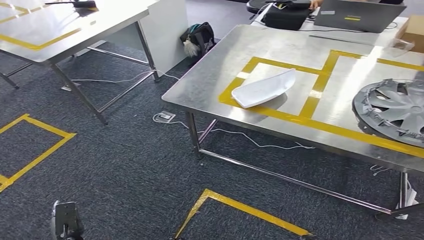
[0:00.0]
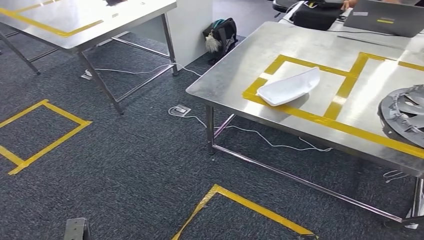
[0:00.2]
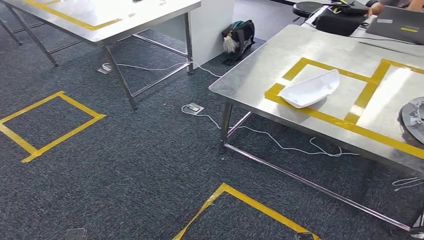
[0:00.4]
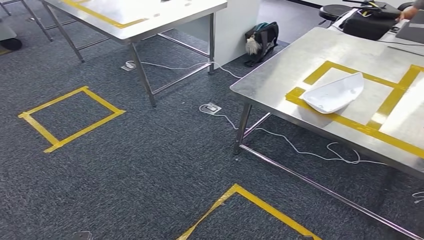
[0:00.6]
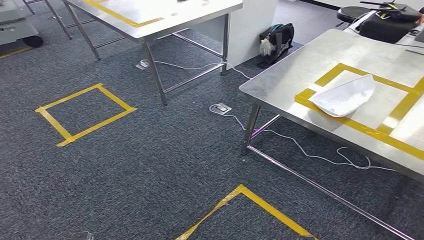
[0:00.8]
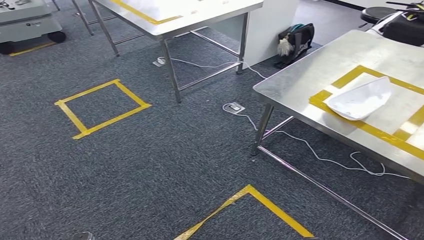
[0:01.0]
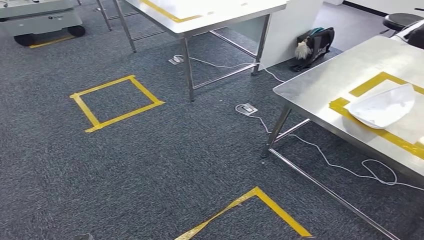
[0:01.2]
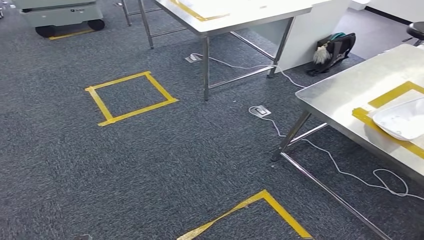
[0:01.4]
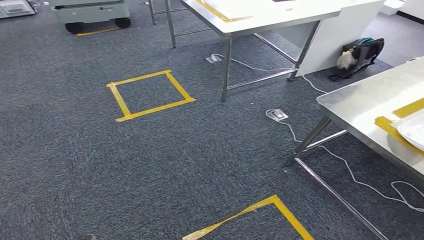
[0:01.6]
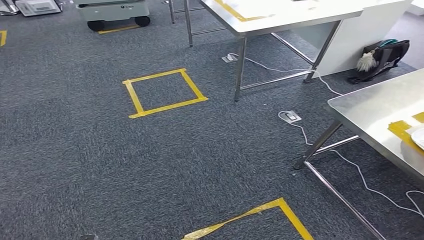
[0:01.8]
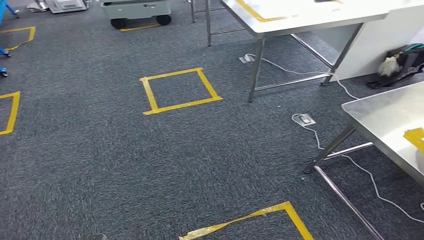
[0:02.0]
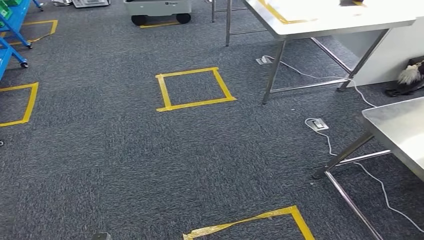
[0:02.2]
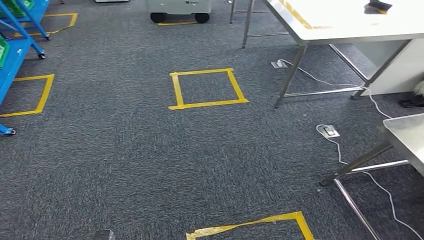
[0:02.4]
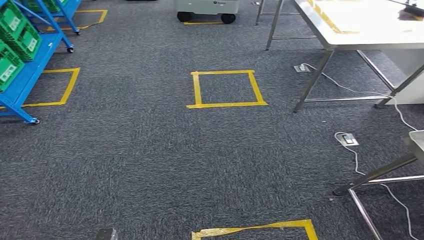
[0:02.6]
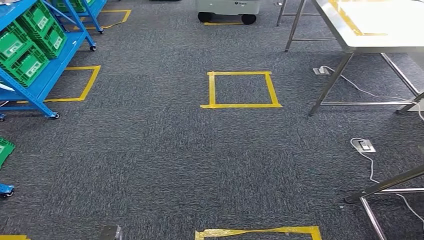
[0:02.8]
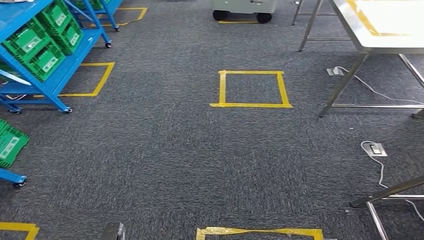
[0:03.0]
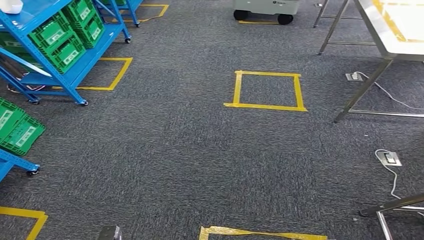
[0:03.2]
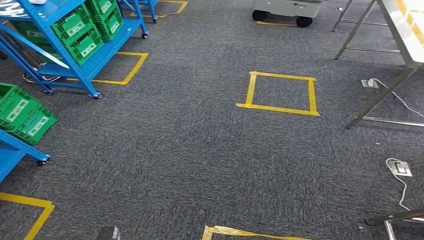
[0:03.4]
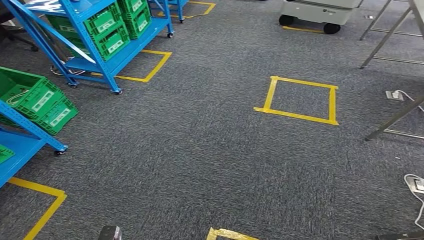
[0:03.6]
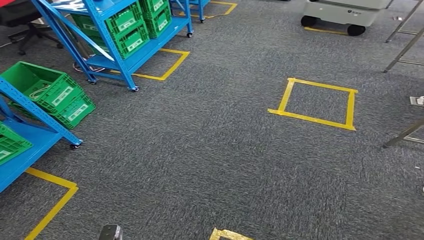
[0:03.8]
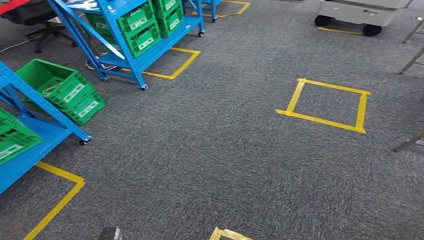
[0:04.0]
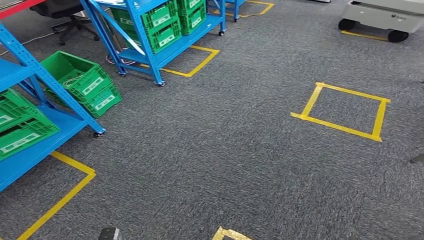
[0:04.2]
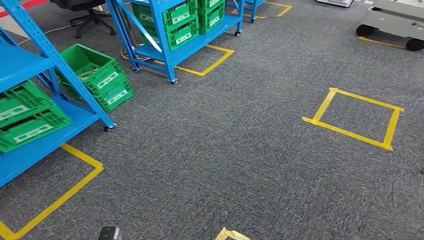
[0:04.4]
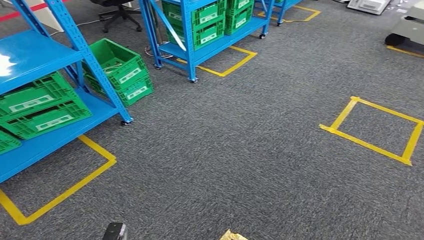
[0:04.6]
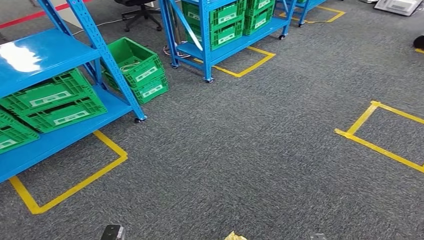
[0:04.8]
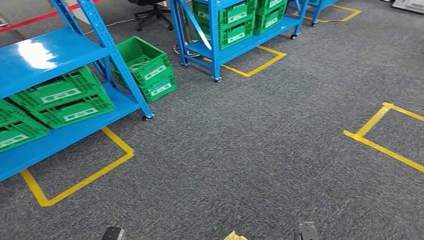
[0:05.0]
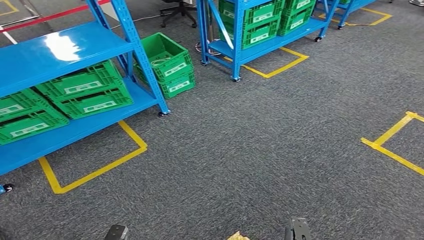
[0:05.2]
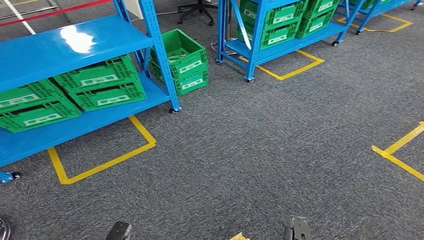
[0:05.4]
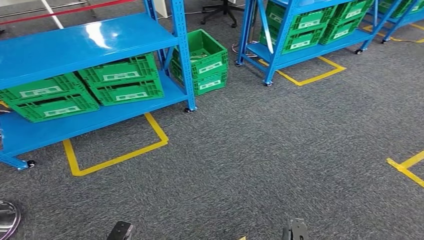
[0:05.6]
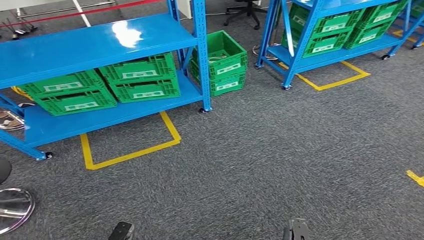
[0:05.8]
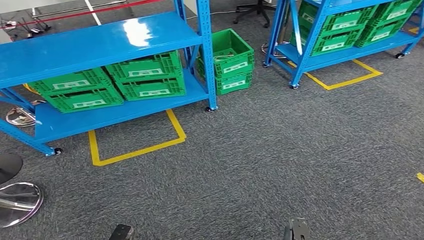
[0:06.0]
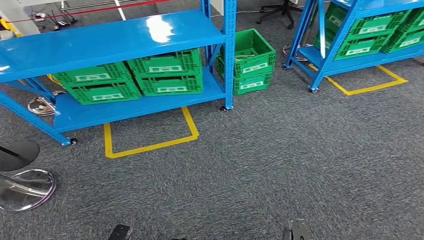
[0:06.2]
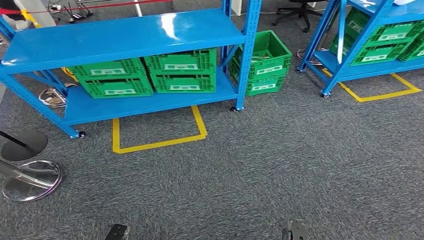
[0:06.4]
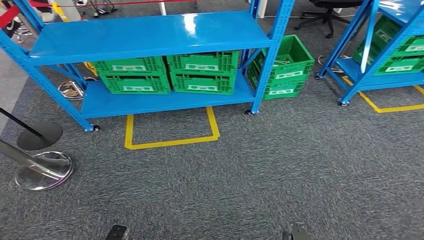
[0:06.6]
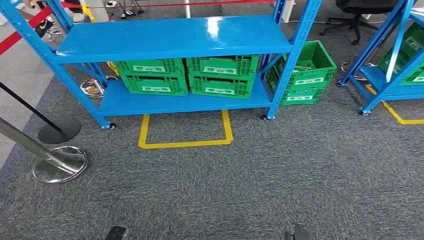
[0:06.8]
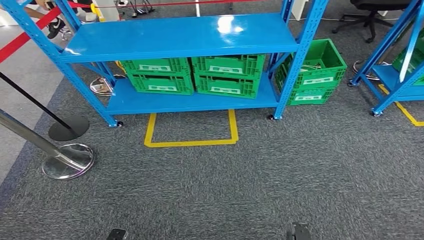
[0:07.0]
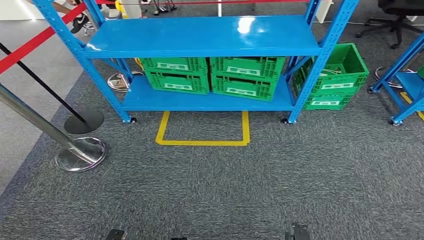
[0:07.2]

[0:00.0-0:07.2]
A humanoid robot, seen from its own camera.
Step, 0:00.0 to 0:07.0: Return to the initial position at the workbench.

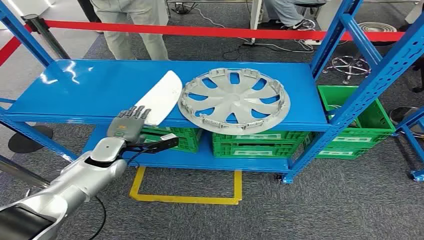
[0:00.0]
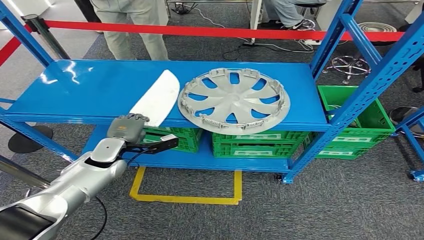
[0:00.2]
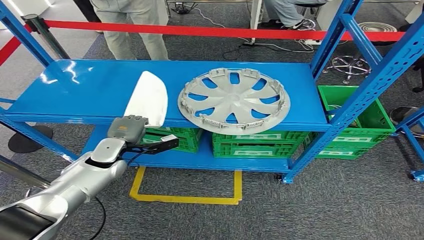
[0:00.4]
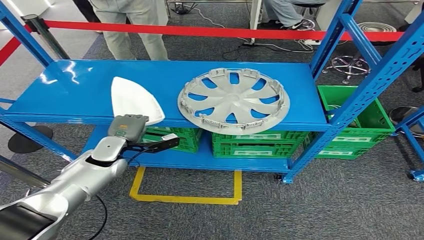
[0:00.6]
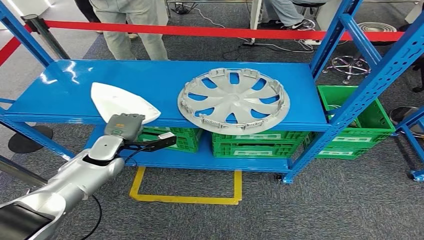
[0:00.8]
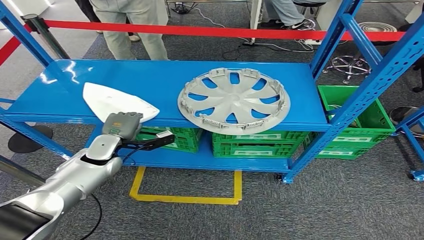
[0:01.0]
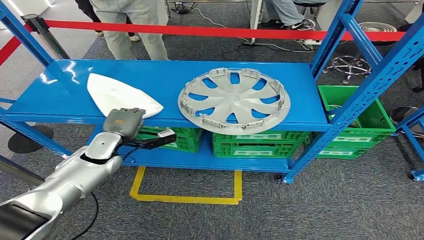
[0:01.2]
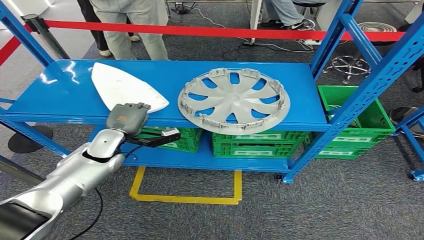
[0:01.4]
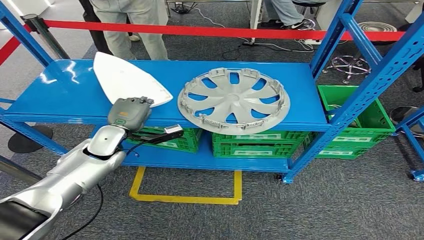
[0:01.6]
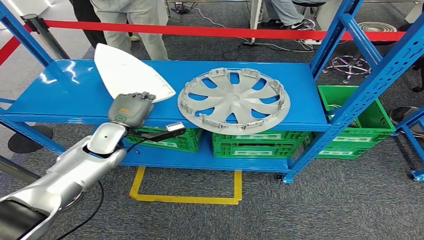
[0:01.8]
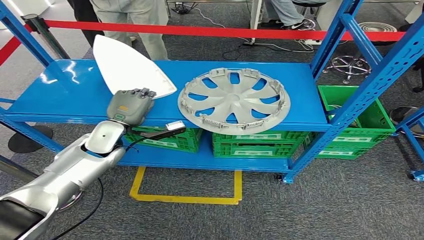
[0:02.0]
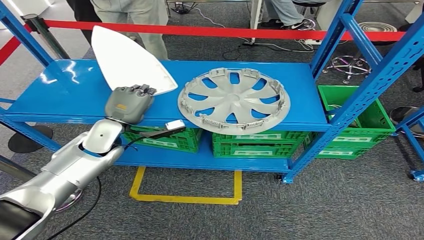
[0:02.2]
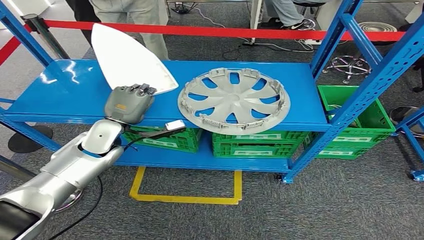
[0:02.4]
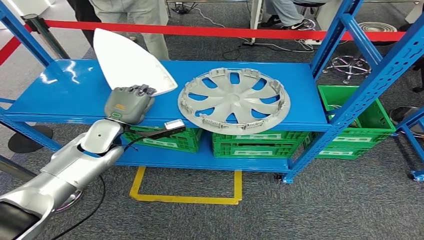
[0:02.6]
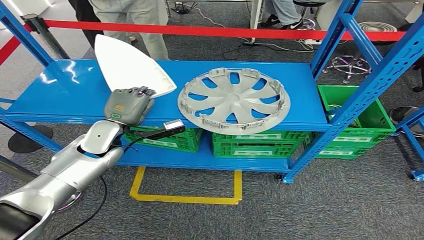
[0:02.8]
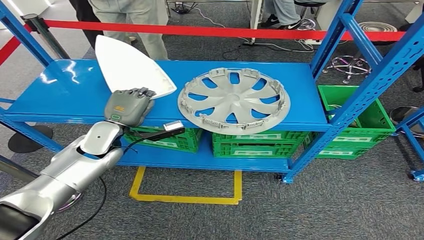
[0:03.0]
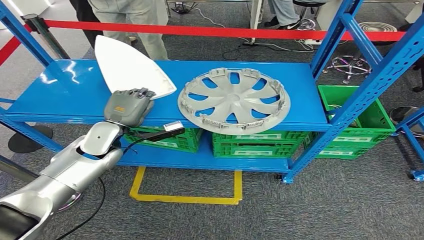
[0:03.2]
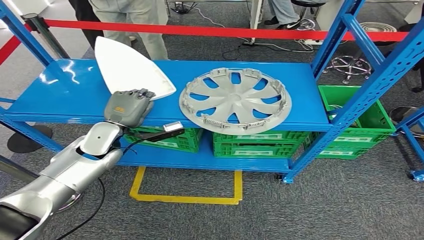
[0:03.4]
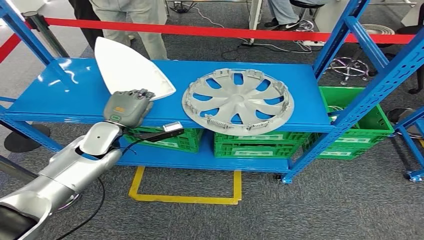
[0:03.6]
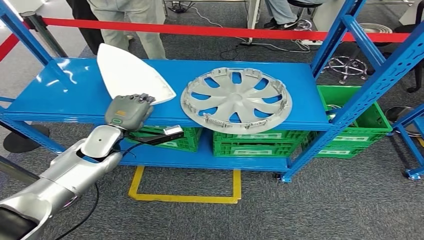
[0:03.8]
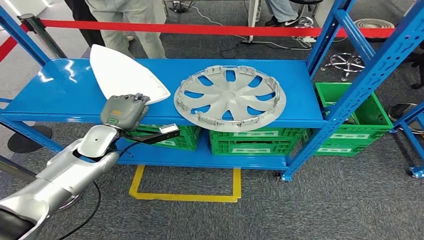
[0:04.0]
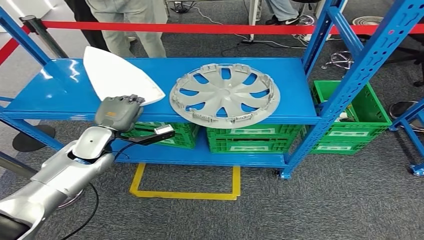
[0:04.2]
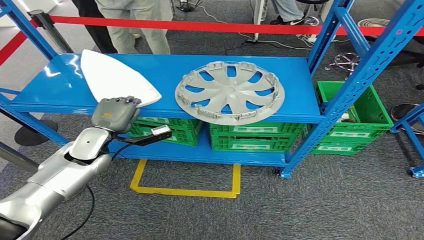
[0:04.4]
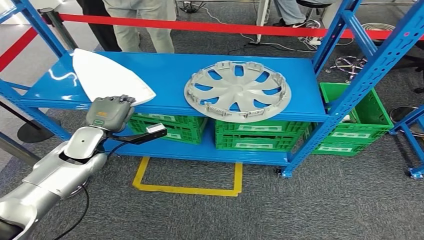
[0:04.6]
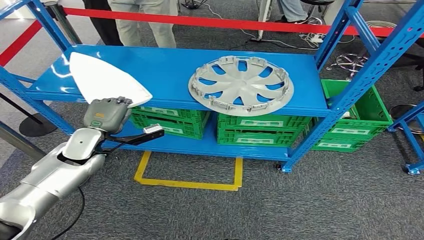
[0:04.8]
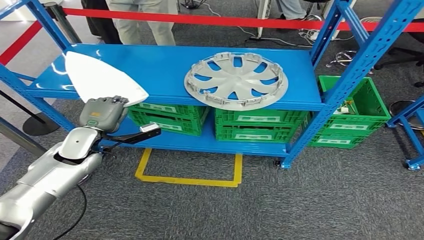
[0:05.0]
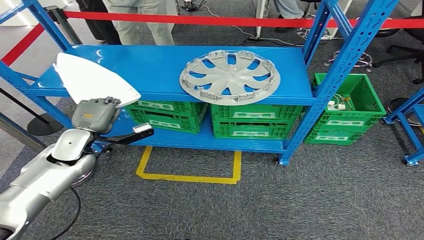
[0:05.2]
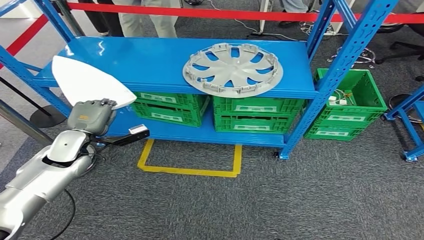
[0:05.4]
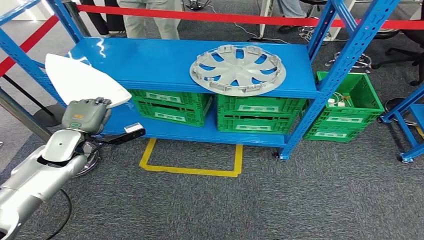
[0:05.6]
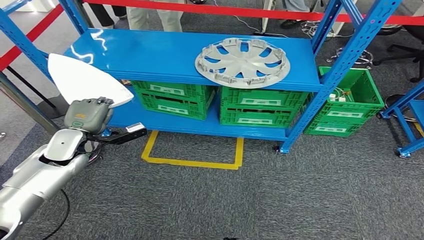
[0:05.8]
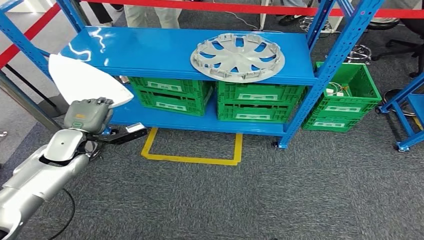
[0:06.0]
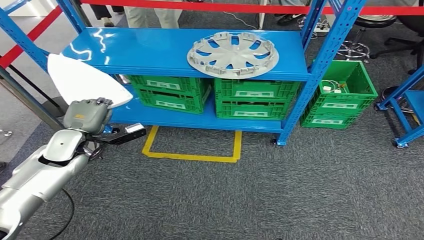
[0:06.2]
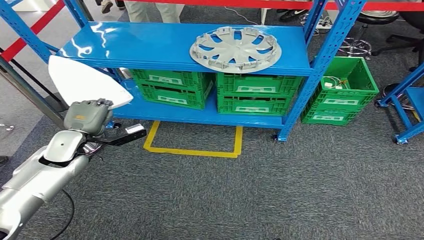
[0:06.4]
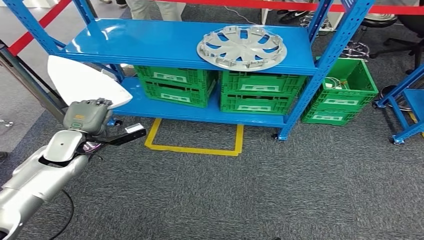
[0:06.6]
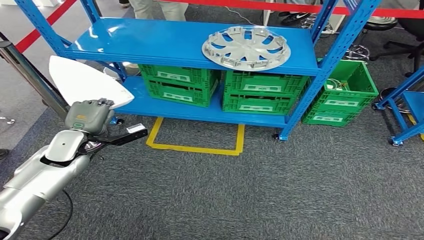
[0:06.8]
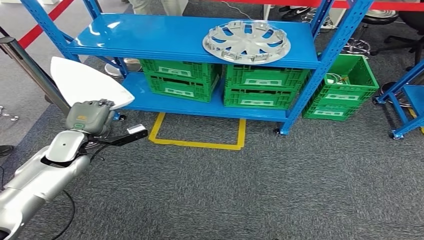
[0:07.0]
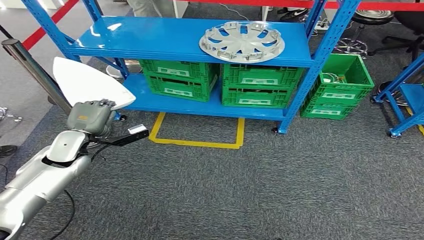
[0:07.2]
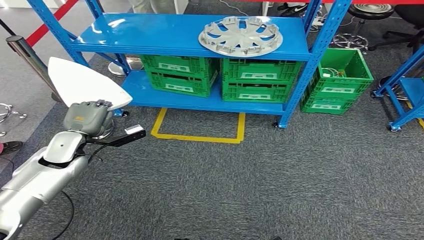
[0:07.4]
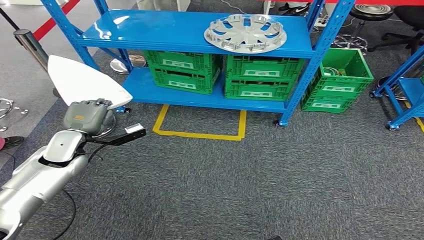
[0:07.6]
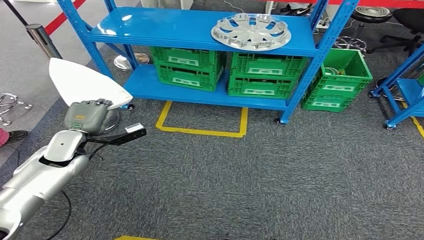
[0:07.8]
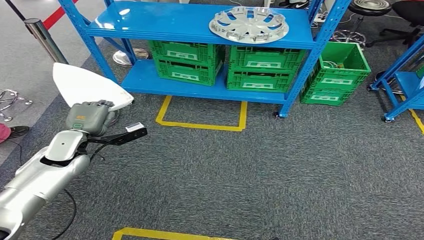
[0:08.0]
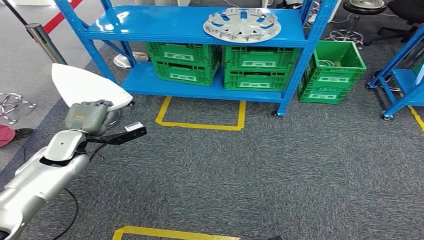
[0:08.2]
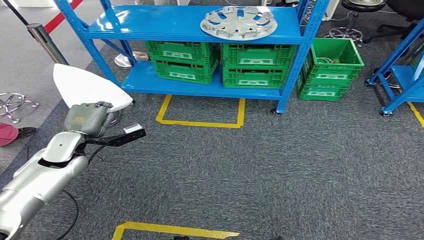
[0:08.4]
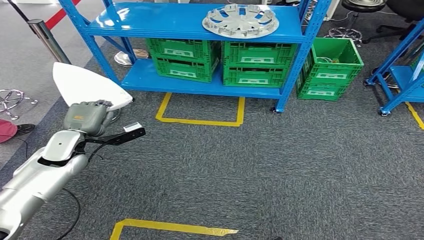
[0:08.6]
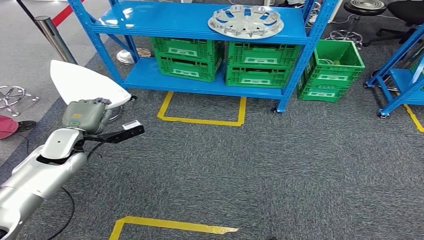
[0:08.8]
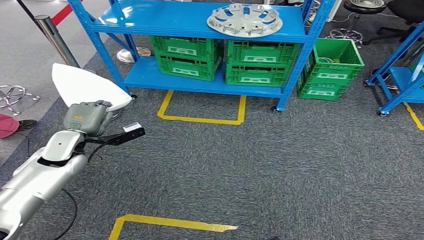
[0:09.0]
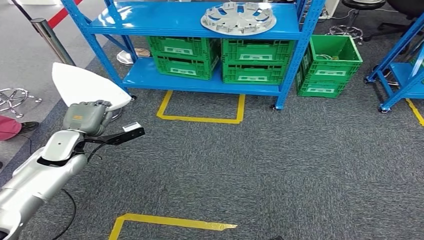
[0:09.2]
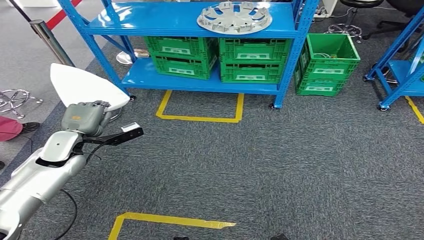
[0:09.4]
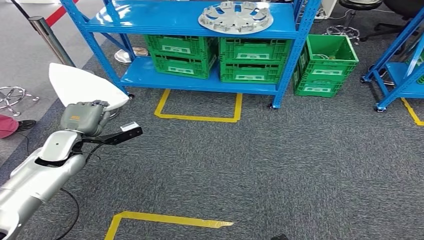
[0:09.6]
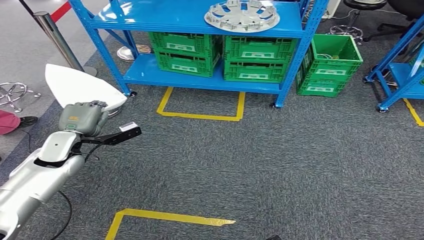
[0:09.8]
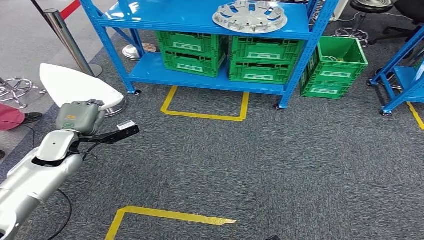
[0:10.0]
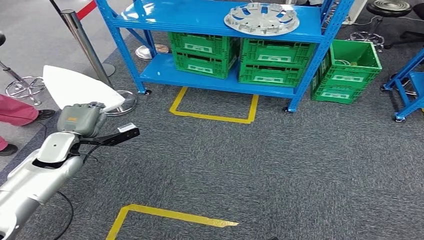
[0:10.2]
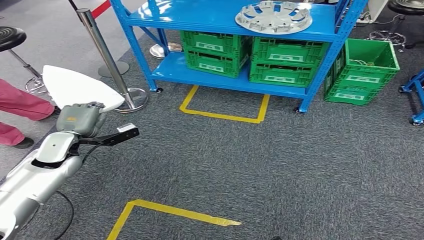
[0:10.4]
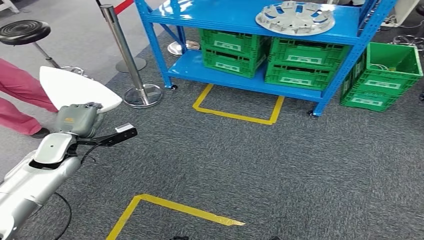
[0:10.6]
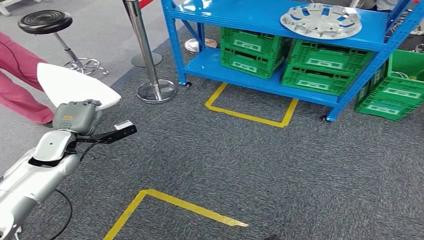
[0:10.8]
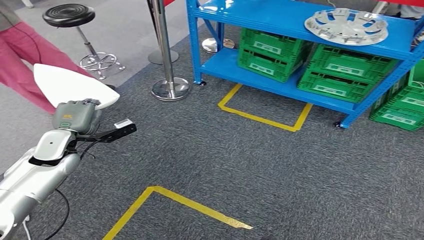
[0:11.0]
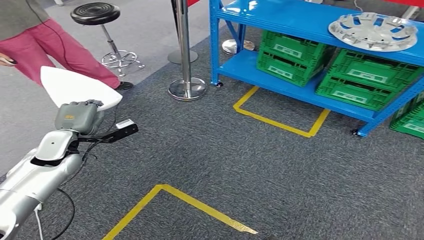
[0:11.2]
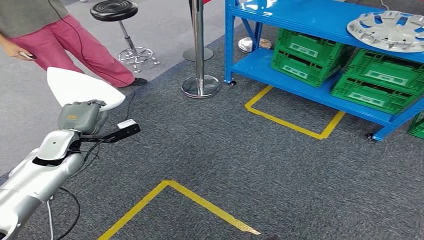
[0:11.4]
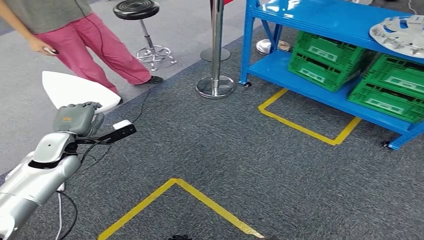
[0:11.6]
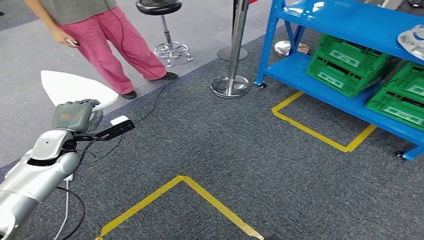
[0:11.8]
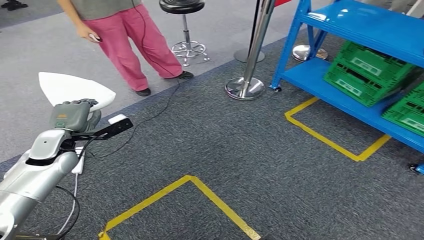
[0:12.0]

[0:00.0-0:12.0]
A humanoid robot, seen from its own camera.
Step, 0:00.0 to 0:05.6: Pick up the small component from the shelf.
0:01.6 to 0:03.0: The hands make only small movements.
